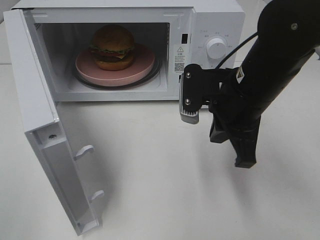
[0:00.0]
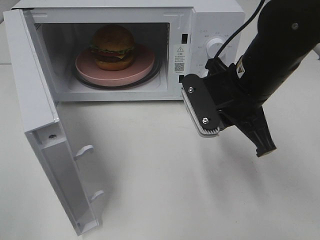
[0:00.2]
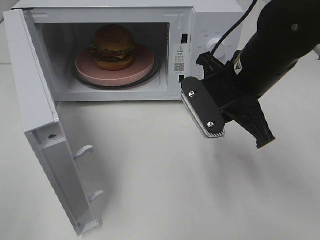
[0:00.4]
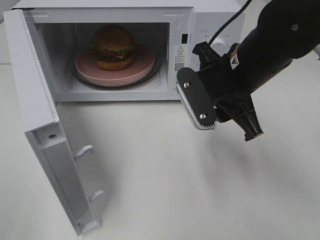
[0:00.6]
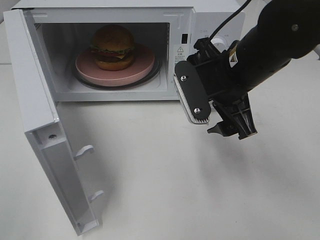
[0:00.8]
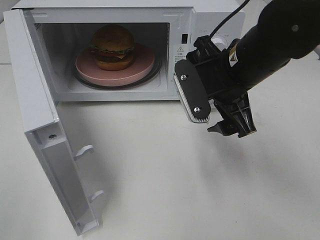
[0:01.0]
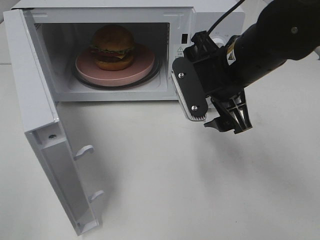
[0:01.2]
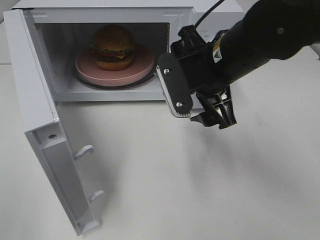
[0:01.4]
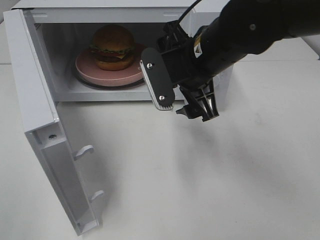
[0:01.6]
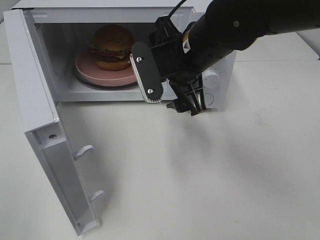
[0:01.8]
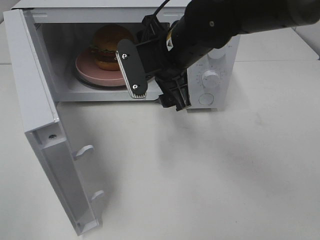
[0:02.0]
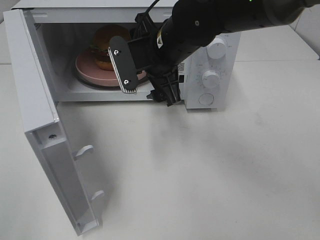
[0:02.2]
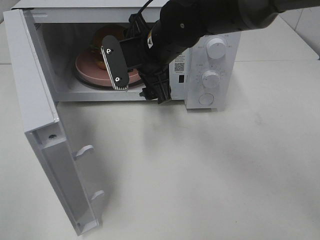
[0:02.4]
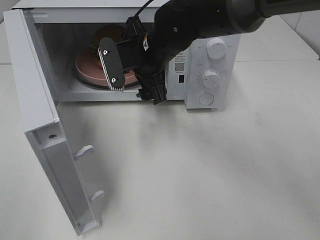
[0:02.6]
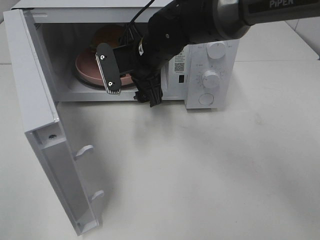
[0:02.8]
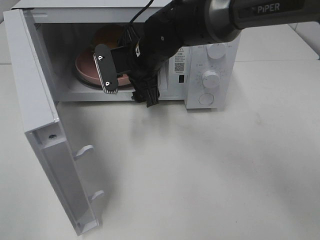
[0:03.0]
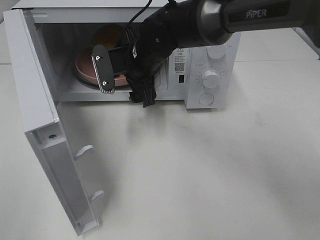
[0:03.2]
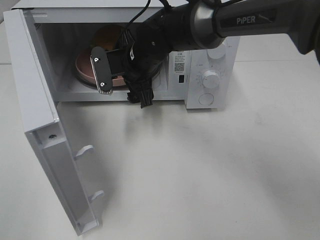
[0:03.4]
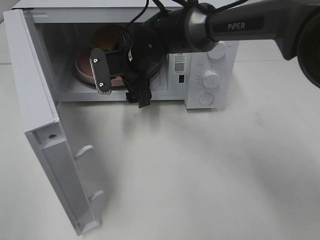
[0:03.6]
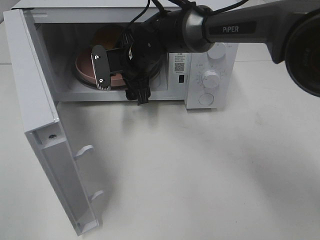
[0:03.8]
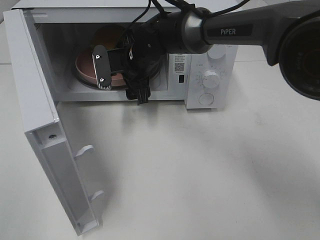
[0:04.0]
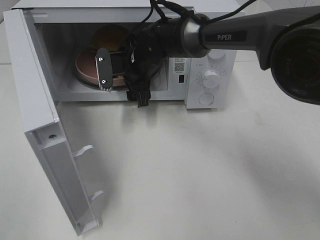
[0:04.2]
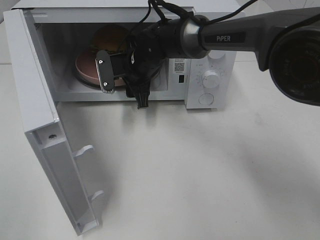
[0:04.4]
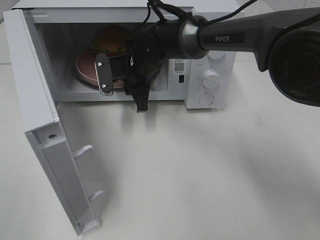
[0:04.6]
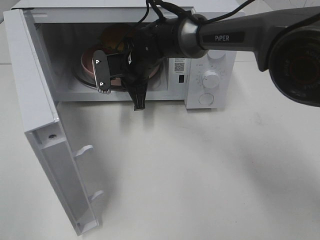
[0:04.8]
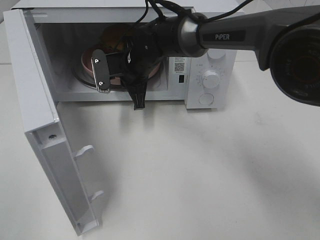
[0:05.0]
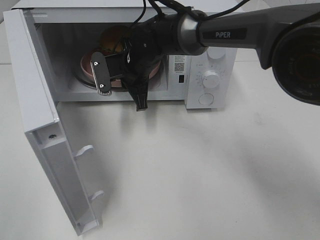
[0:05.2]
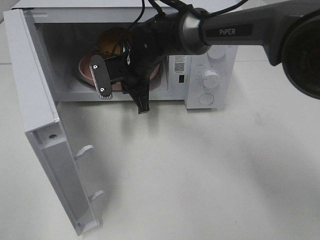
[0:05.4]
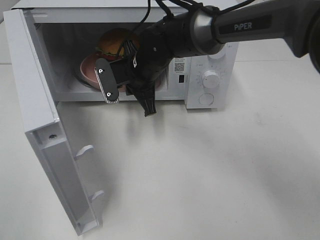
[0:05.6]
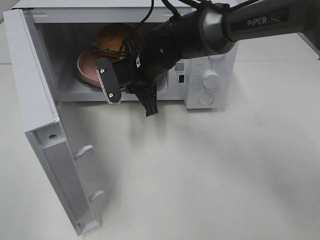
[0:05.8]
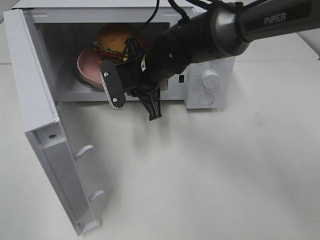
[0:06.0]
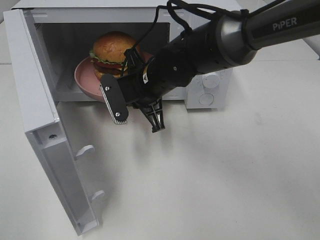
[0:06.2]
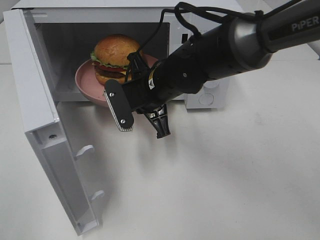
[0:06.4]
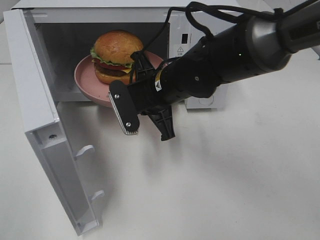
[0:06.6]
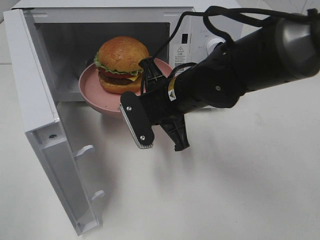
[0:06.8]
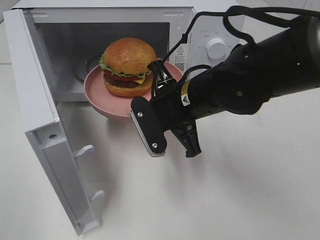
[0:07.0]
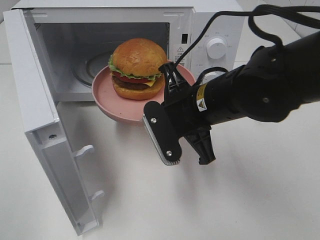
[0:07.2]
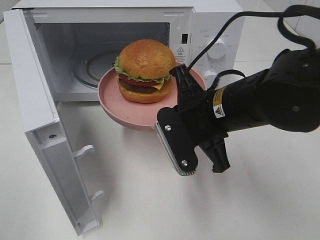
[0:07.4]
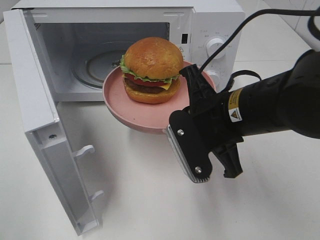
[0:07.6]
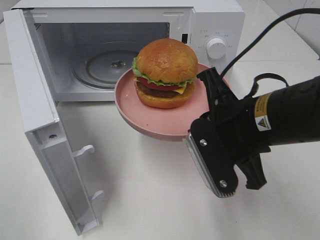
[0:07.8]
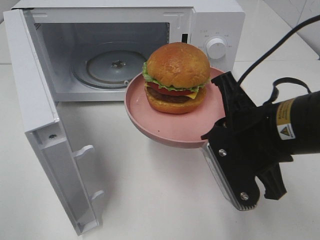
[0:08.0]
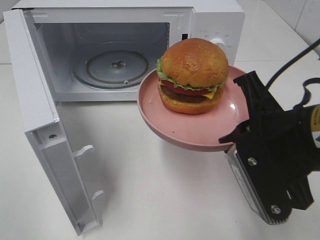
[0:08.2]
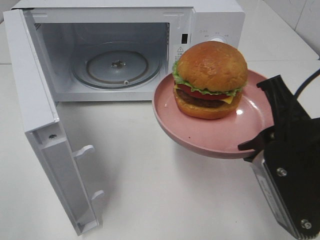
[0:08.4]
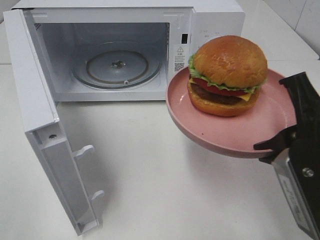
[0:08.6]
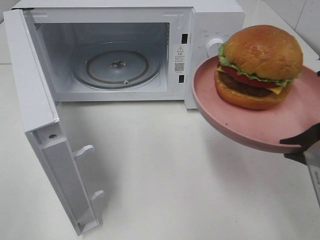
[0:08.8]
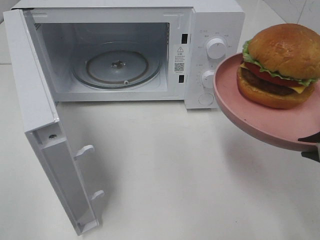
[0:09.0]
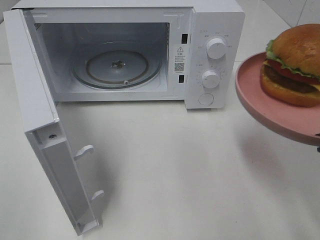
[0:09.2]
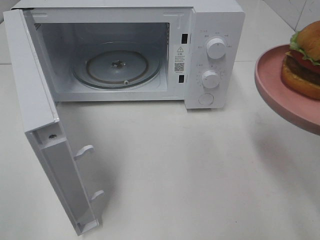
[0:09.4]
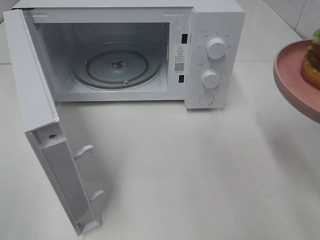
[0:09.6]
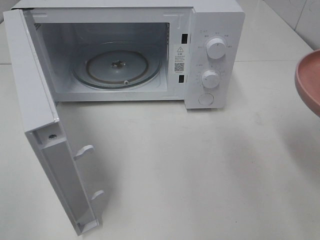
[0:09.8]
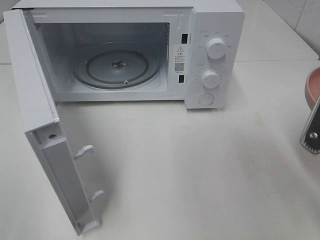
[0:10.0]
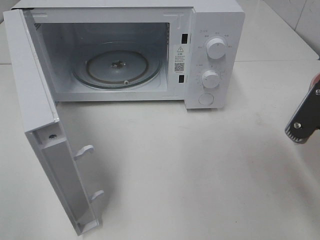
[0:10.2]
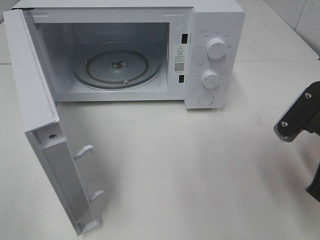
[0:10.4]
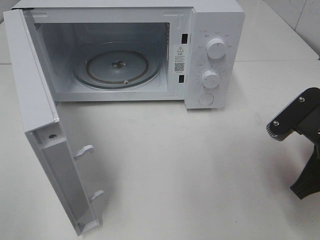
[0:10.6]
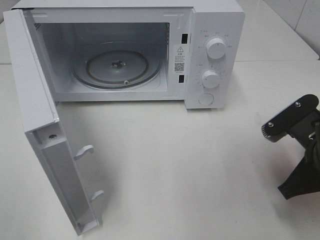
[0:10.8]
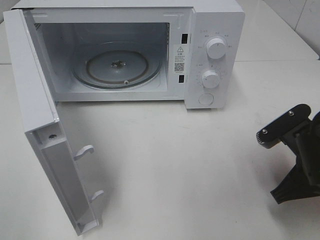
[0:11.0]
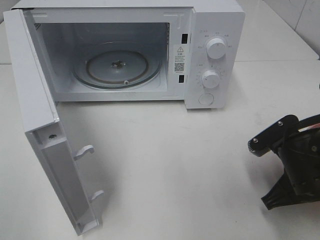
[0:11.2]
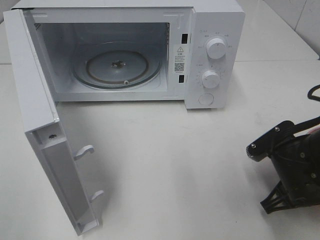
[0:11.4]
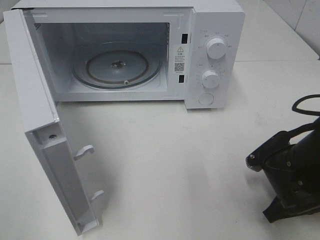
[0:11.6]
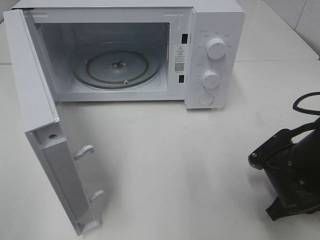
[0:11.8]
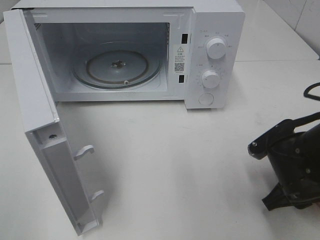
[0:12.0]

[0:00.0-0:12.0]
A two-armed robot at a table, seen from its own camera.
Task of the whole recording: Heat the burger.
Step, 0:00.0 to 0:04.6: Right hand: grab the plate with the hamburger.
Step, 0:04.8 to 0:11.8: Right hand: place the plate on the table.
0:00.0 to 0:01.6: The right gripper is displaced to the left by about 5 cm, and opens.
0:01.6 to 0:03.0: The right gripper travels forward and to the left by approximately 10 cm.
0:03.0 to 0:04.4: The right gripper changes place by some 5 cm.
0:04.4 to 0:06.0: The right gripper goes about 5 cm backward, and closes its fingers.
0:06.0 to 0:07.6: The right gripper heads backward and to the right, covering about 20 cm.
0:07.6 to 0:09.0: The right gripper shifts about 15 cm to the right, backward and upward.
0:09.0 to 0:10.4: The right gripper moves downward and forward, some 10 cm.
0:10.4 to 0:12.0: The right gripper moves downward, about 10 cm, and opens its fingers.

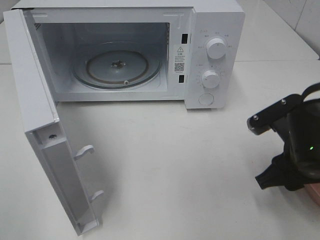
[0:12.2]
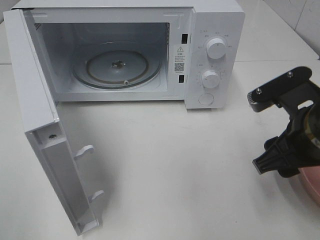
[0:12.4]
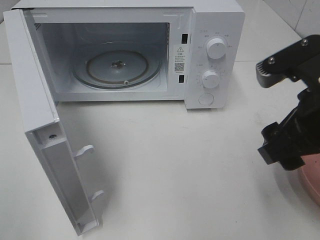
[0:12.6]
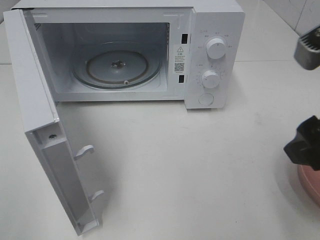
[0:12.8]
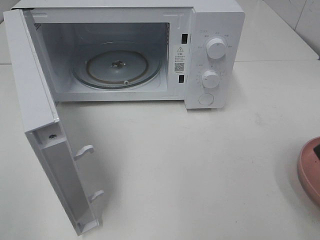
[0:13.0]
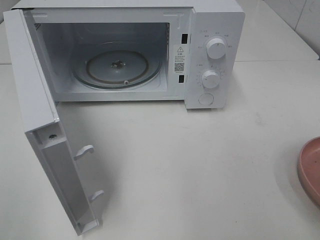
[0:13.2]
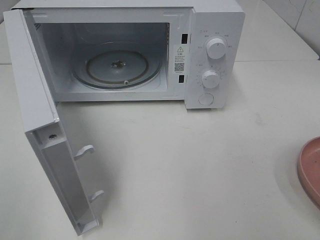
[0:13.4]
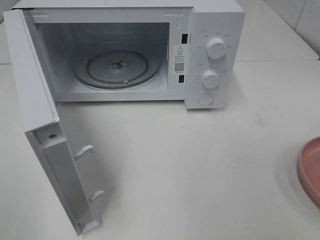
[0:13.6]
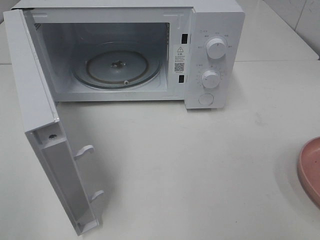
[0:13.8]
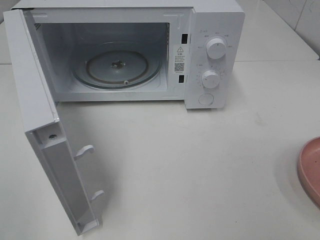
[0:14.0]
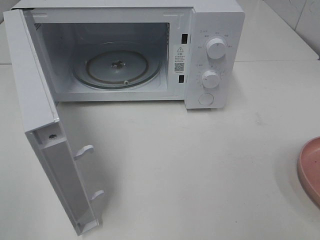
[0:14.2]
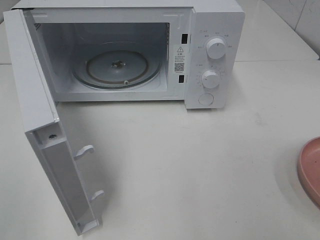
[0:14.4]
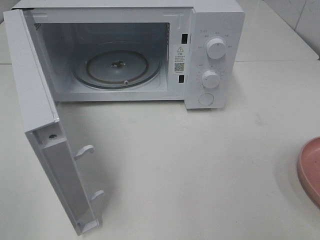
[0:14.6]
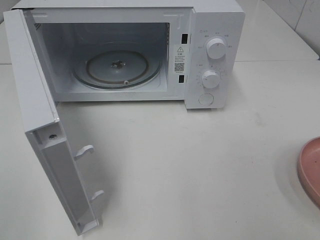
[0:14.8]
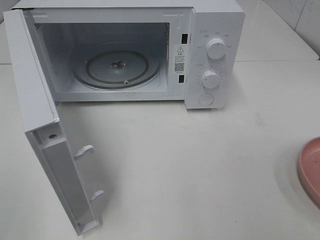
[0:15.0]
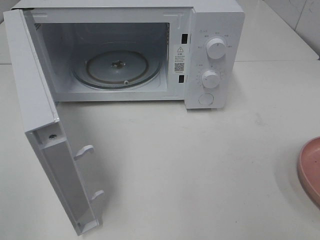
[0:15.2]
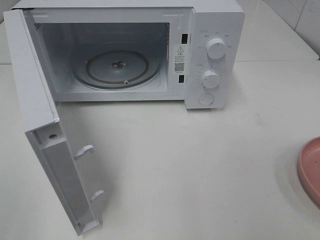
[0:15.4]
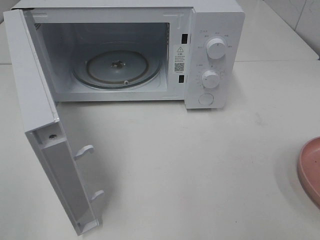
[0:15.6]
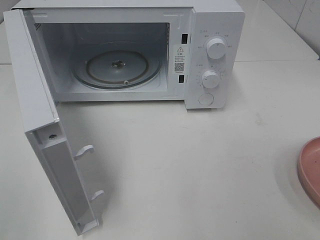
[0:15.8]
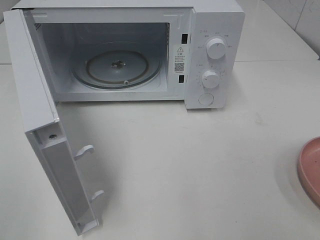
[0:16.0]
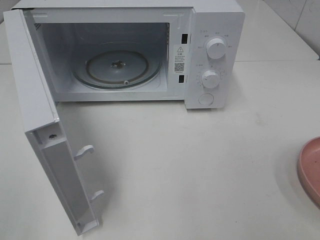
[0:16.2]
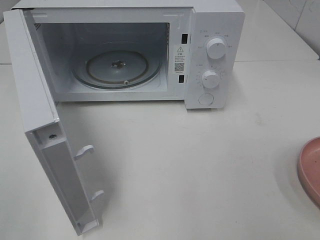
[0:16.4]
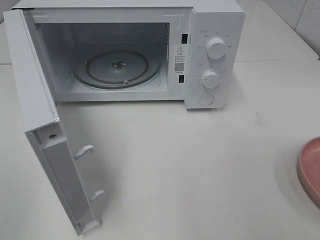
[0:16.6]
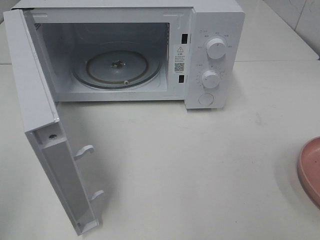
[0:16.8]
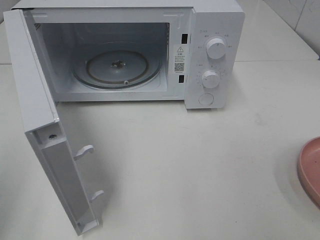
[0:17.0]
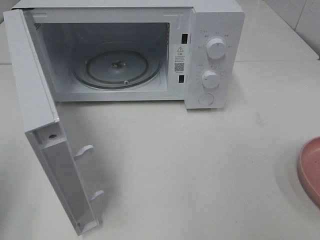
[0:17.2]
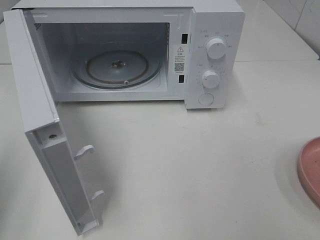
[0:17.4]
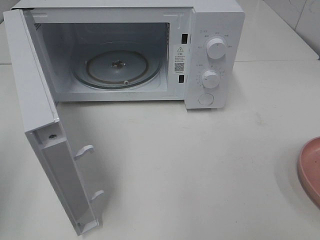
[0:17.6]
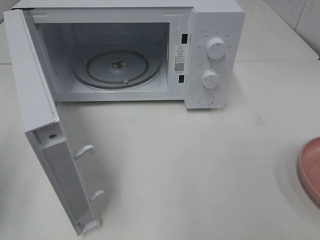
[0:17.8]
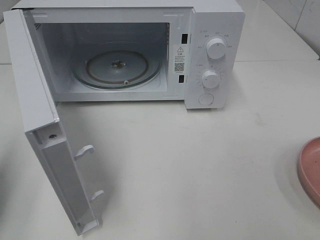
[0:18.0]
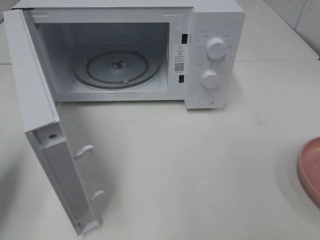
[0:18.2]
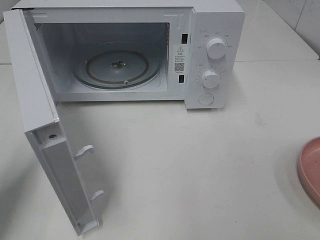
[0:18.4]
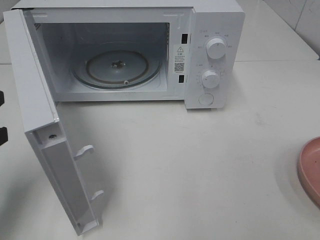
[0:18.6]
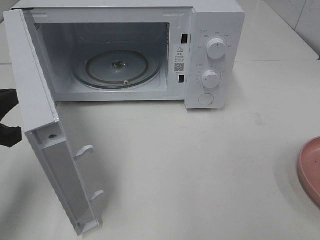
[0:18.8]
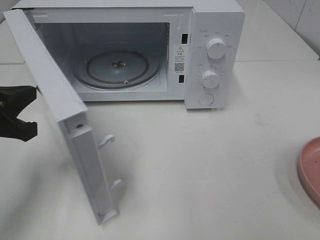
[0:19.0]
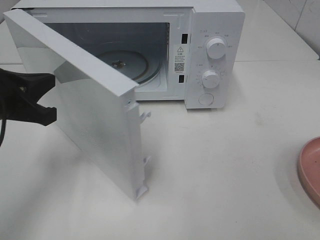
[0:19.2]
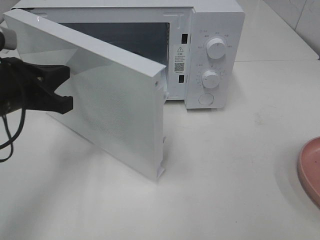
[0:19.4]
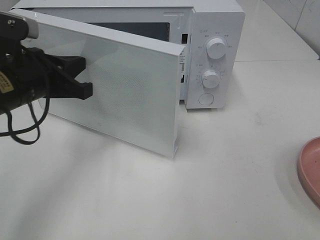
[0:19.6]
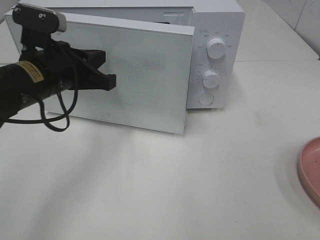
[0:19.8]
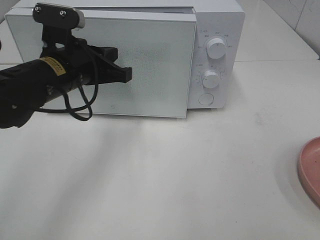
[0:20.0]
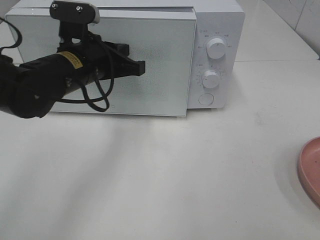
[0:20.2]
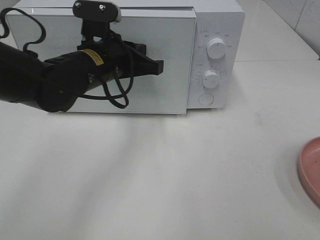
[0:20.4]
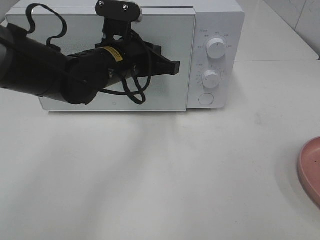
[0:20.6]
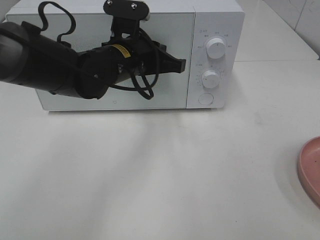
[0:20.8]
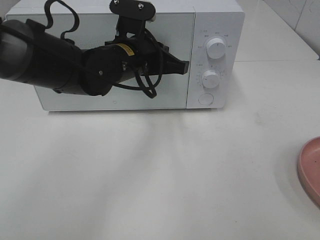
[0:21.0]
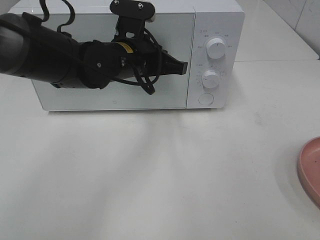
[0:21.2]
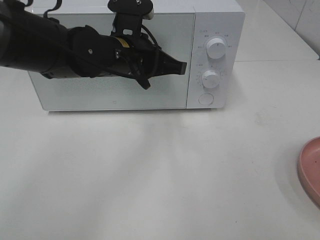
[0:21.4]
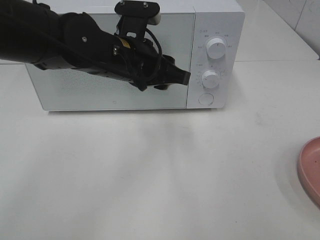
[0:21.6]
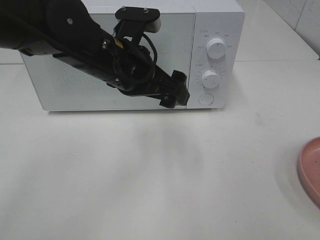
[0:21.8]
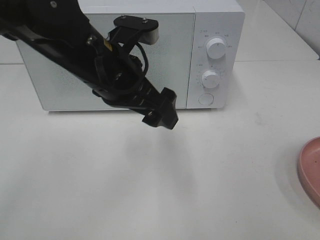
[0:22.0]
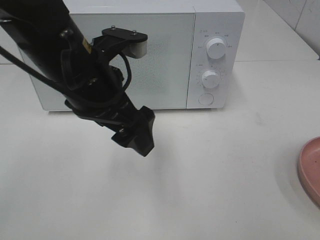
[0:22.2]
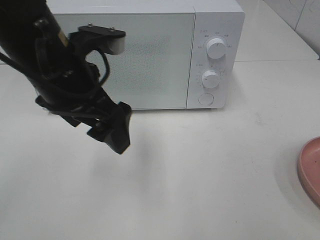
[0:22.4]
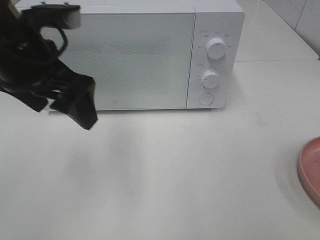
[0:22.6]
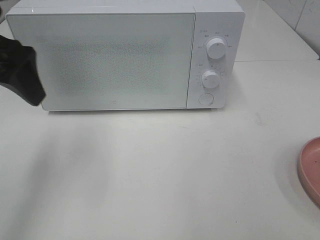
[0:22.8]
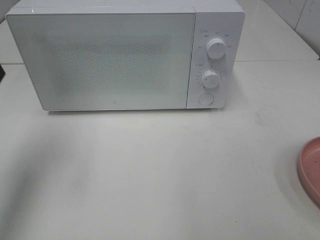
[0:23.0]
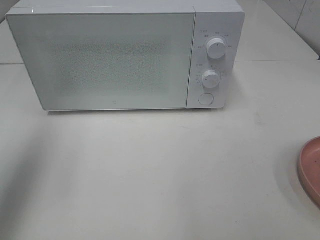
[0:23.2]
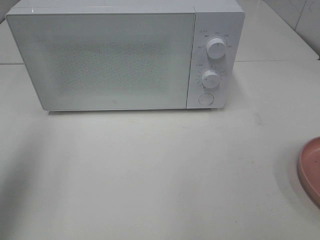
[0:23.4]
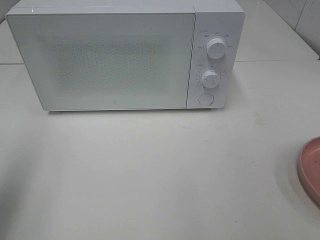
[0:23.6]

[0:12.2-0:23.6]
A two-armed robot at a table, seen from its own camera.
Task of the whole recording: Heat the burger.
Step, 0:12.2 to 0:21.2: Left hand: close the microwave door.
0:12.2 to 0:13.6: The right gripper moves upward and backward, about 25 cm.
0:15.0 to 0:16.4: Both grippers stay about where they are.
0:17.8 to 0:19.4: The left gripper moves to the right and forward, roughly 15 cm.
0:19.4 to 0:20.8: The left gripper moves to the right and forward, approximately 20 cm.
0:20.8 to 0:22.2: The left gripper shifts roughly 10 cm backward and upward, and opens.
0:22.2 to 0:23.6: The left gripper moves to the left and backward, some 25 cm.
